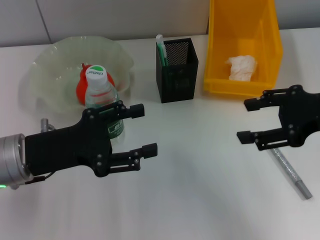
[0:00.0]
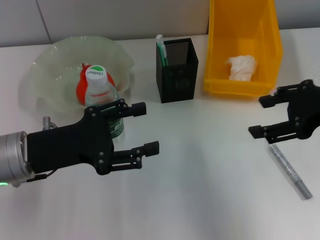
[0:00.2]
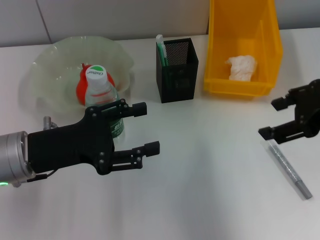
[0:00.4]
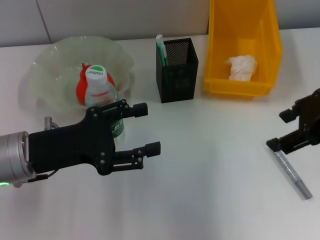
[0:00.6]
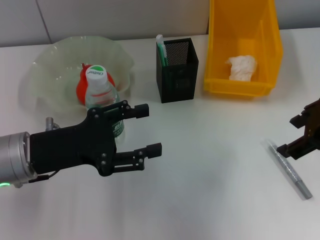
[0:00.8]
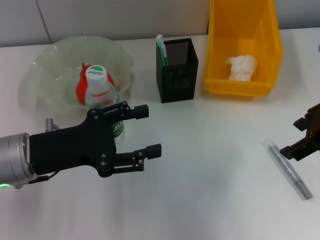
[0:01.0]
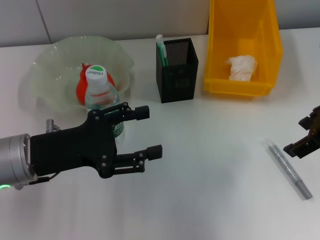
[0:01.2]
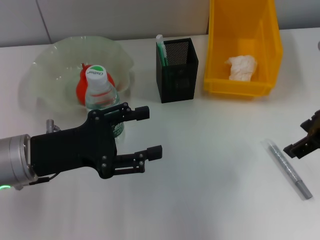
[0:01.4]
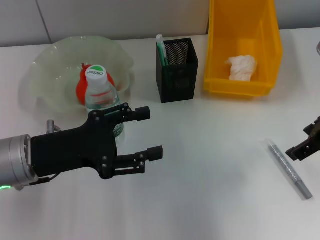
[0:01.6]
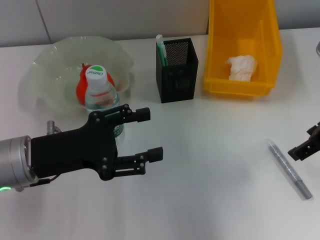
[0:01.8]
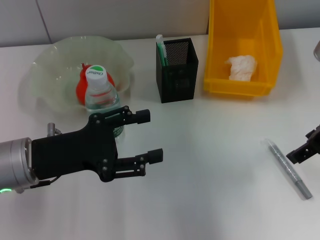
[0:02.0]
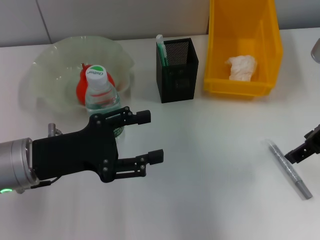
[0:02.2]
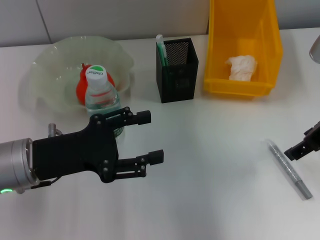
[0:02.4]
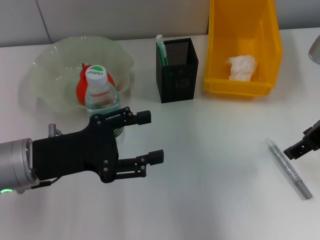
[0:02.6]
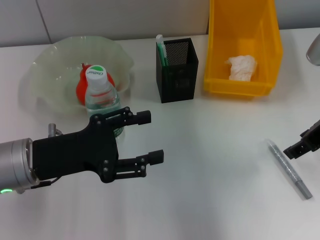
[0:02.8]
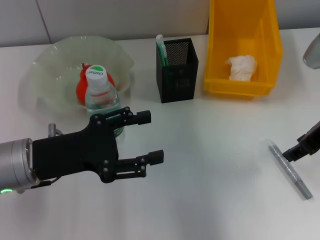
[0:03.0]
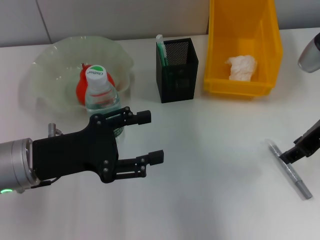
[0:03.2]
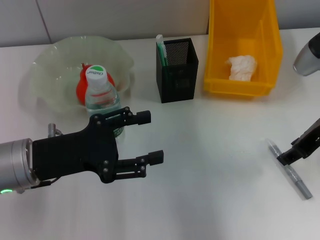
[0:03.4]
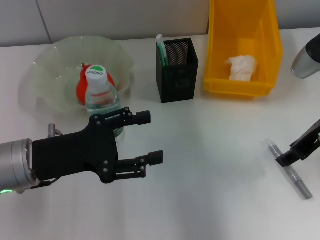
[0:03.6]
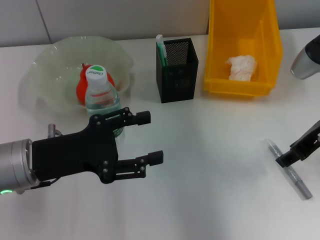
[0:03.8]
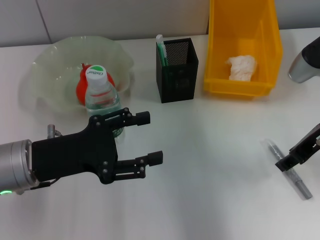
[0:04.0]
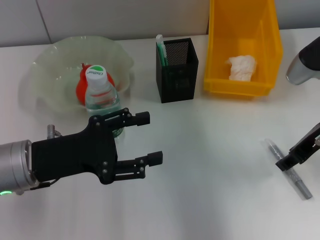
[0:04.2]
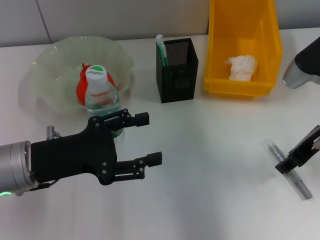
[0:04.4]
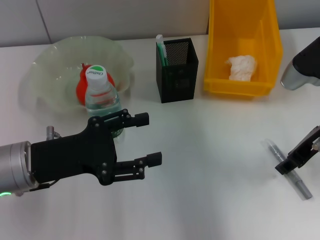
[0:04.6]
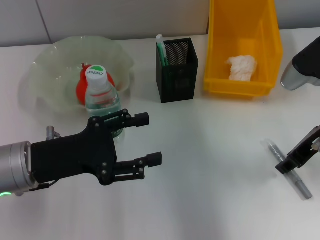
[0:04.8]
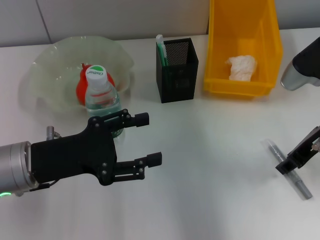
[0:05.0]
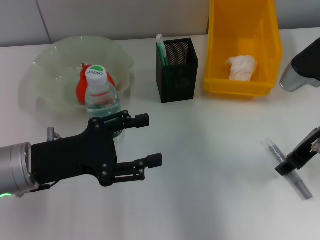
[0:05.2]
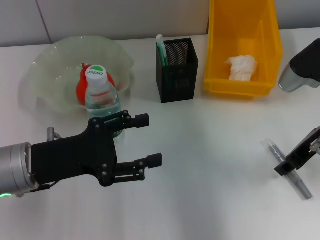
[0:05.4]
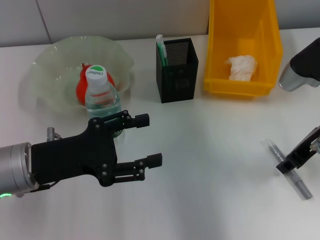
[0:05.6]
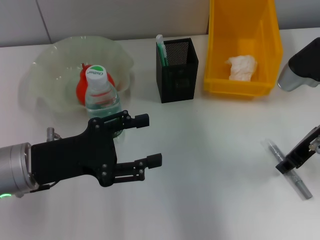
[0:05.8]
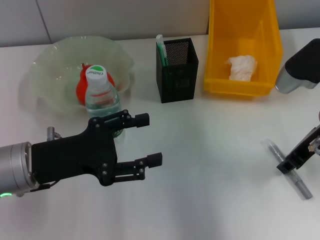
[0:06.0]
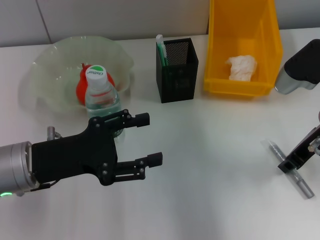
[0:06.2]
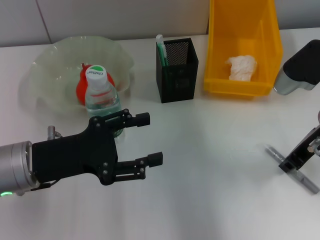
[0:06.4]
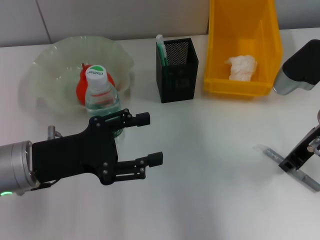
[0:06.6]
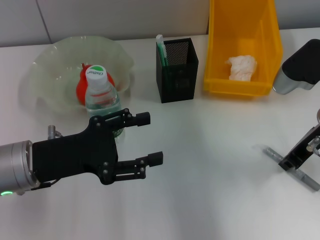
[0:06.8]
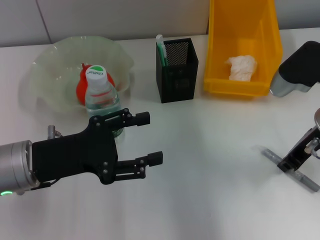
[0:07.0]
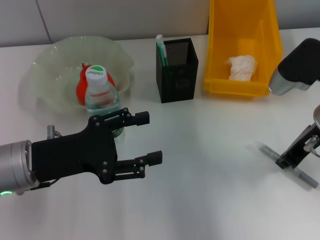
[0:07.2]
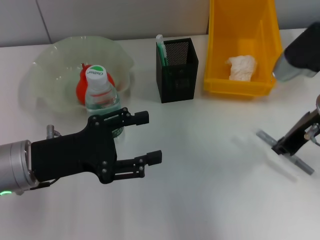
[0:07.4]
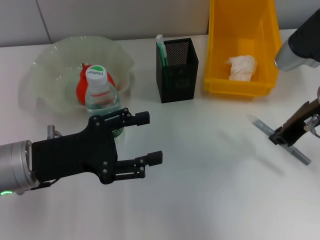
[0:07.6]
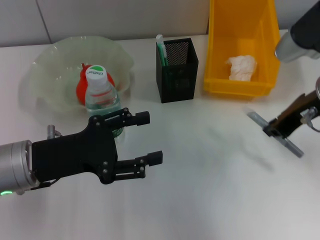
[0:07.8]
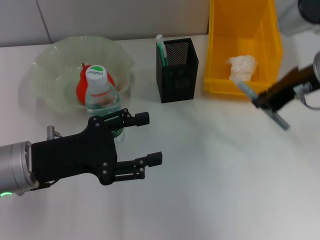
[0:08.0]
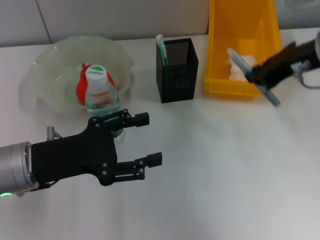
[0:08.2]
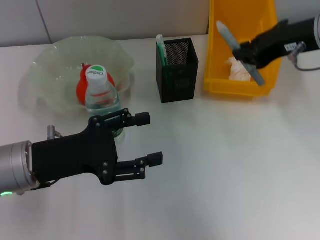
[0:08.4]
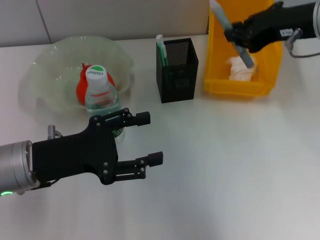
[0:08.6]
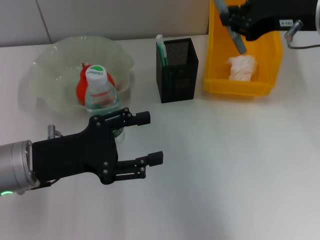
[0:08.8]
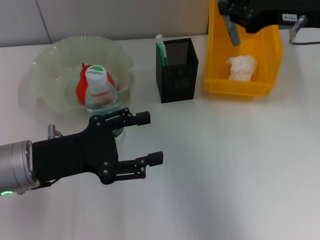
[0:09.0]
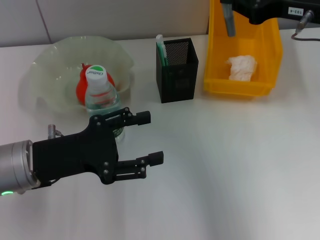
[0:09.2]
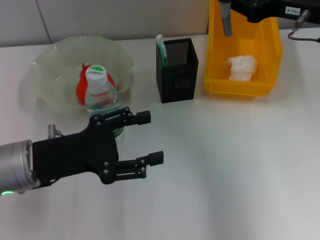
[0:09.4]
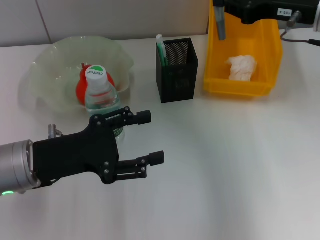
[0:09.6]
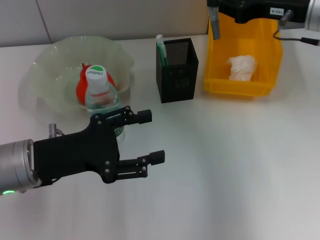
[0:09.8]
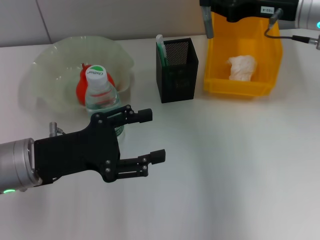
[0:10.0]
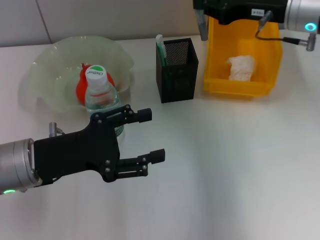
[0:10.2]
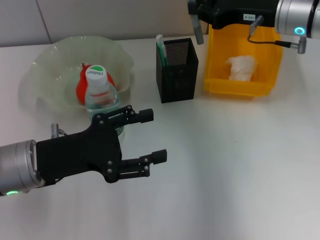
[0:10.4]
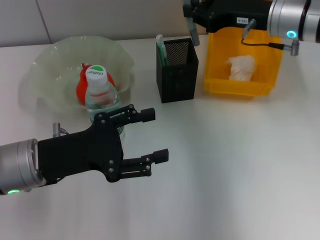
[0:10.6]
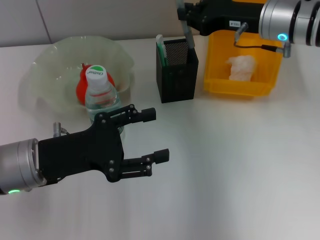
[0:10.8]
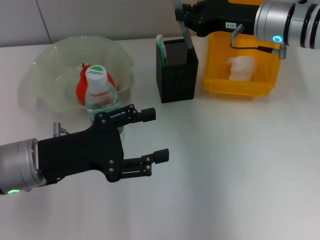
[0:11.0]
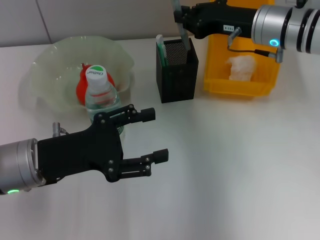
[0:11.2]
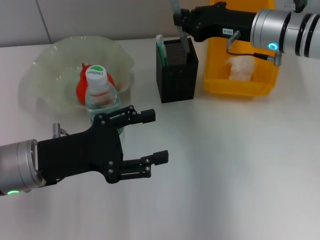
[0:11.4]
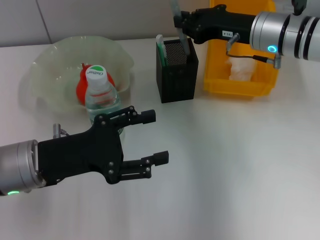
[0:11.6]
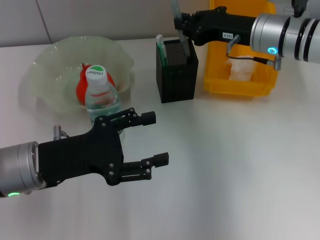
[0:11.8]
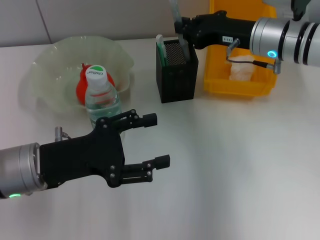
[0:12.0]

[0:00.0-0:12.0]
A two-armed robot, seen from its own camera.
Step, 0.0 to 6.6 s: Grab the gray glue with the right hand.
1.6 to 3.0 s: There are only small adjustments of the grippers.
3.0 to 4.4 s: There are only small adjustments of the grippers.
4.4 to 6.0 s: Both grippers stay put.
6.0 to 7.6 s: The right gripper closes up.
7.6 to 9.0 s: The right gripper goes about 5 cm upward.
9.0 to 10.4 s: The right gripper heads forward and downward, covering roughly 10 cm.
10.4 to 12.0 s: The grippers stay close to where they were, moving slightly.

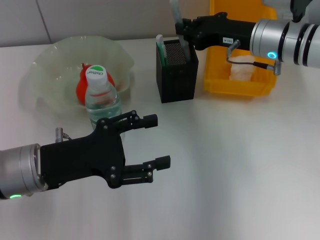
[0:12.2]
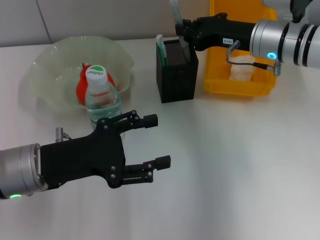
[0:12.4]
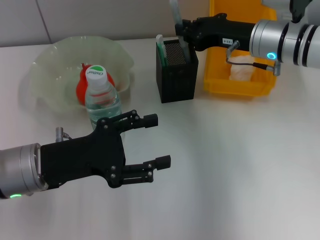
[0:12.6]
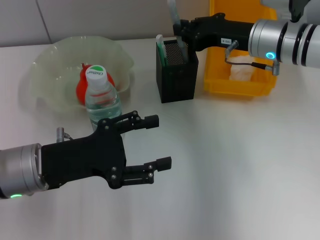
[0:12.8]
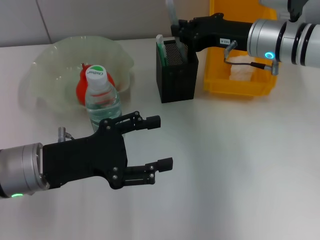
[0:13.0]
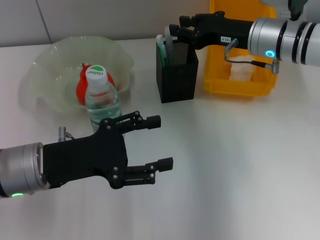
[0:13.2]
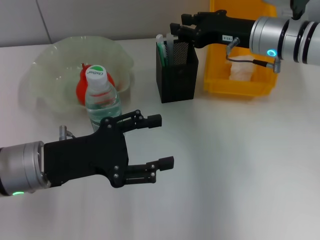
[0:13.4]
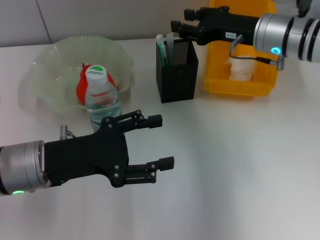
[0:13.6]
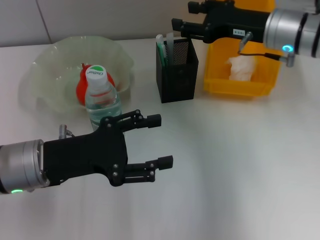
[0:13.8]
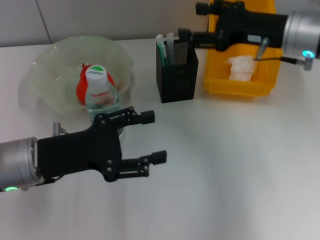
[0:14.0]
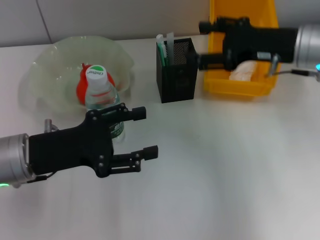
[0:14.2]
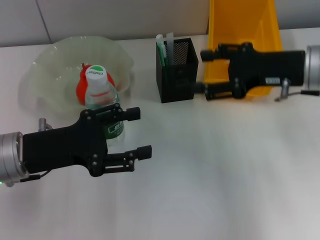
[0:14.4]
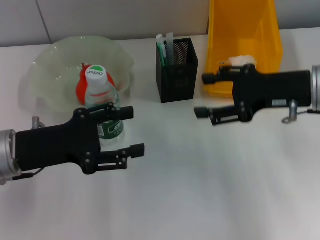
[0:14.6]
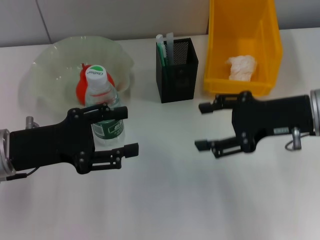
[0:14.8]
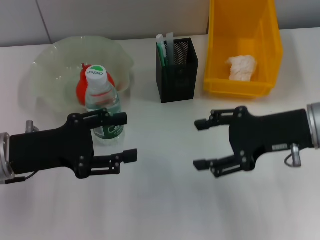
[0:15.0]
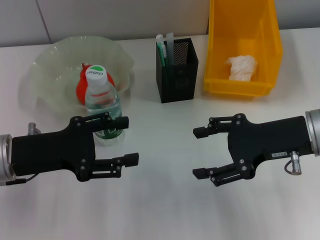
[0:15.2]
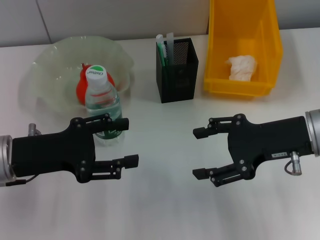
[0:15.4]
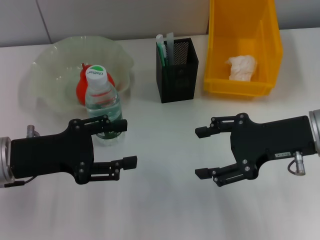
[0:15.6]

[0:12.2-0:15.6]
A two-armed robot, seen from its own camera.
12.2 to 13.8 s: The right gripper opens its fingers.
13.8 to 15.6 s: The right gripper moves backward, roughly 15 cm, and opens its fingers.

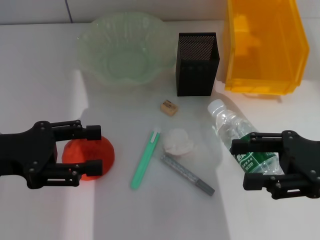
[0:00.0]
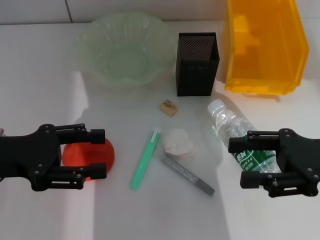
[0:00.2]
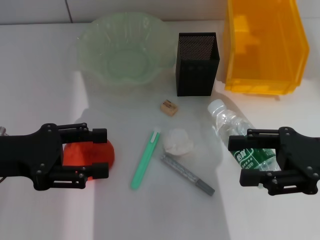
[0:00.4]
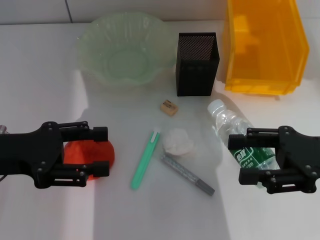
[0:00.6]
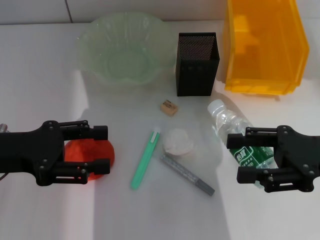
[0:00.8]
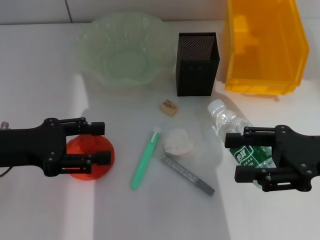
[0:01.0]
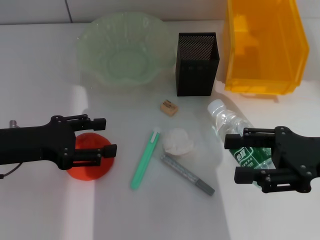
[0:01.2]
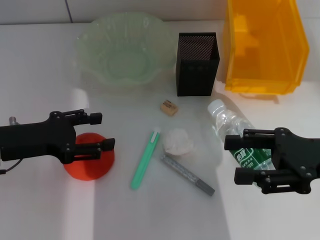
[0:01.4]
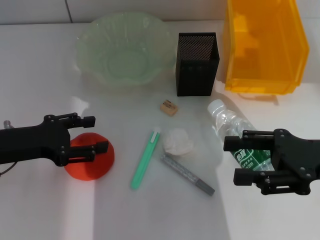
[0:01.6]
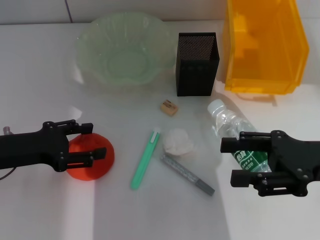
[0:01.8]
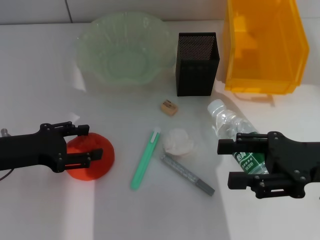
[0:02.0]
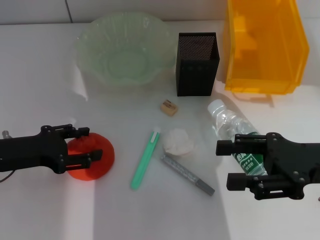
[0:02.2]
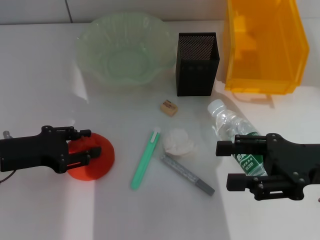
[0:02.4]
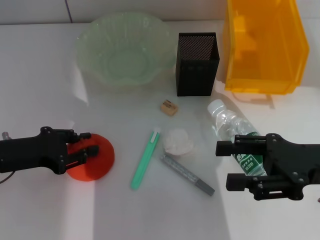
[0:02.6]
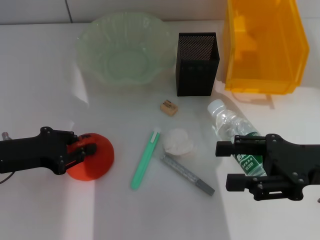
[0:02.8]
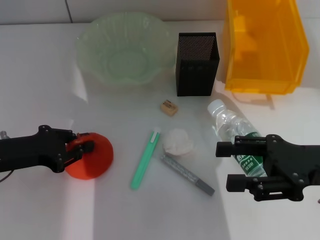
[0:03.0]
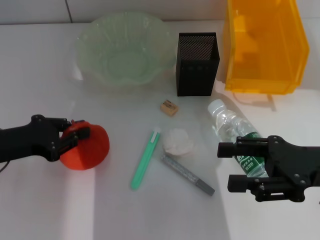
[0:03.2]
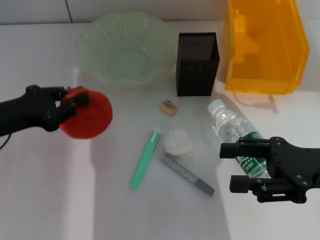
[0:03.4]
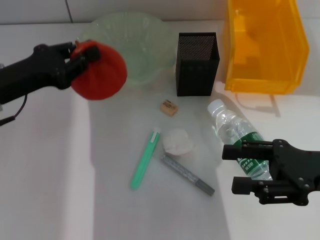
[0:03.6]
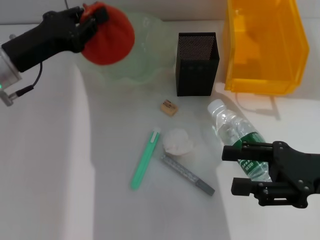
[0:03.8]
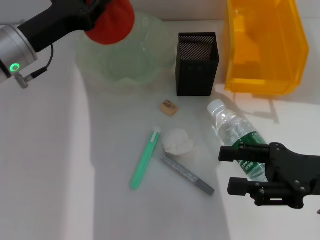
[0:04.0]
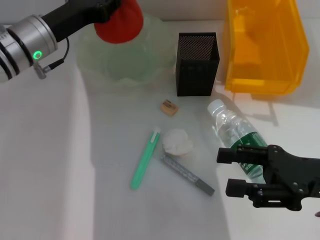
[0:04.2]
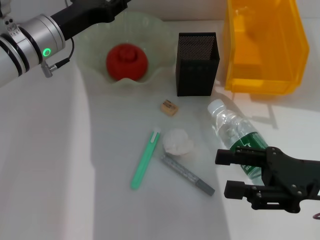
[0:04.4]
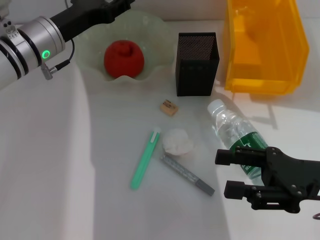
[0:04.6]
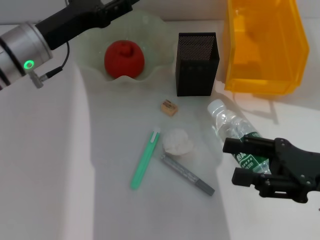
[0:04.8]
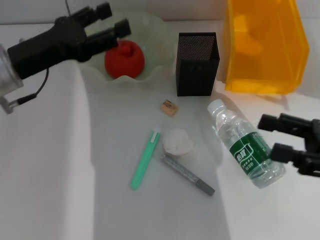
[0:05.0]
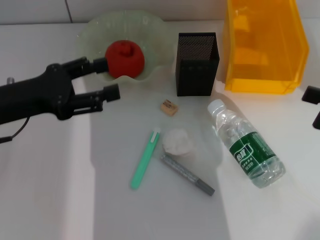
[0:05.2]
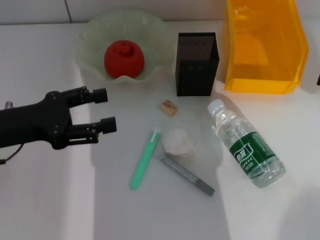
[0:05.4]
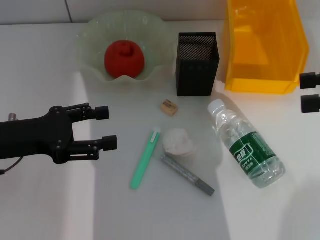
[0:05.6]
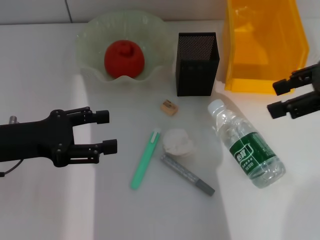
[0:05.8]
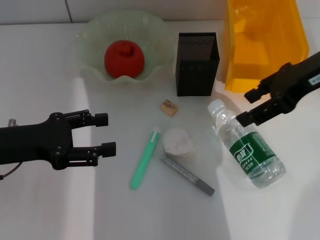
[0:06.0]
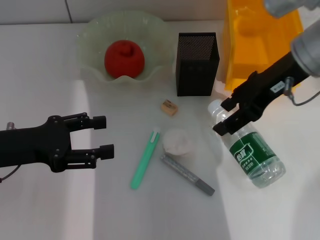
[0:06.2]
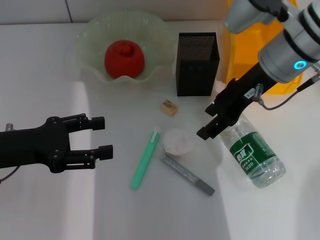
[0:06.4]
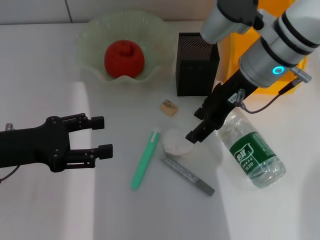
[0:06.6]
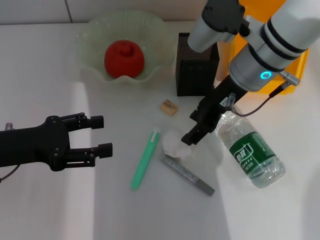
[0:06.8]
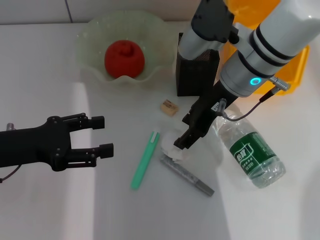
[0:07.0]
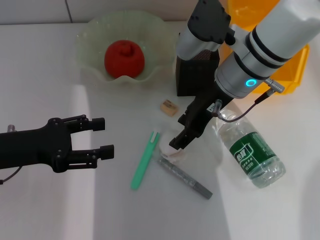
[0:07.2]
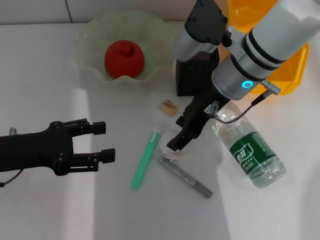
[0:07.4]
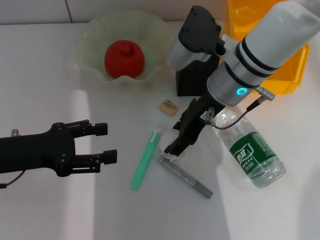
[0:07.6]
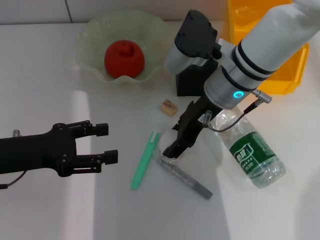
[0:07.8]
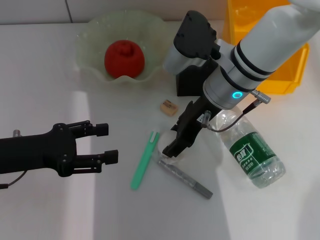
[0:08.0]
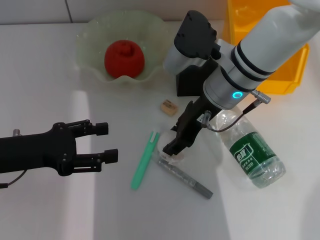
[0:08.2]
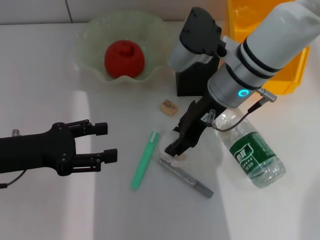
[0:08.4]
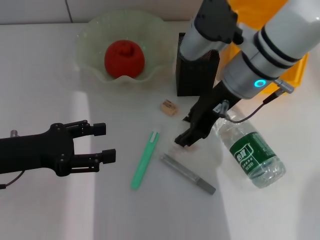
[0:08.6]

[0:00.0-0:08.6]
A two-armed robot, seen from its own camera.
Step, 0.0 to 2.8 s: Grab the orange with the left hand.
Step, 3.0 to 4.8 s: Place the orange into the fruit bowl with the left hand.
Step, 5.2 to 8.2 s: Grab the paper ball with the right hand.
0.0 to 1.4 s: The grippers move only a little.
1.4 to 2.8 s: The left gripper closes.
2.8 to 4.4 s: The left gripper is displaced forward and to the right by approximately 15 cm.
4.4 to 5.8 s: The right gripper shifts about 20 cm upward and forward; the left gripper shifts approximately 15 cm backward and to the left, and opens.
5.8 to 7.2 s: The right gripper travels to the left and downward by some 20 cm.
7.2 to 8.6 s: The grippers stay close to where they were, moving slightly.
